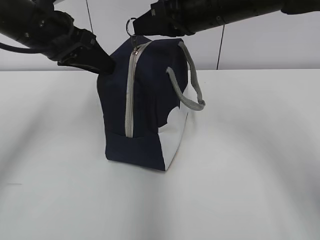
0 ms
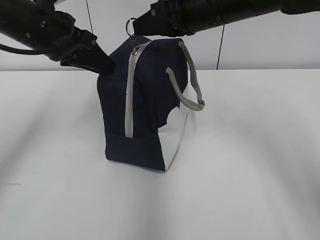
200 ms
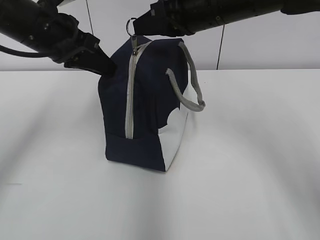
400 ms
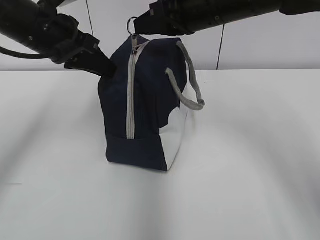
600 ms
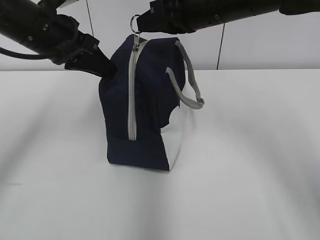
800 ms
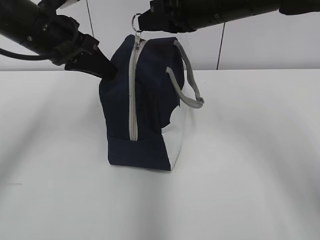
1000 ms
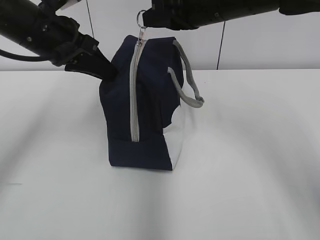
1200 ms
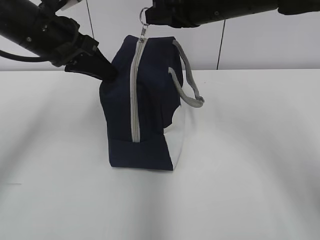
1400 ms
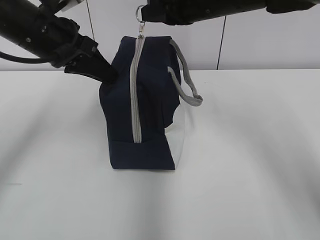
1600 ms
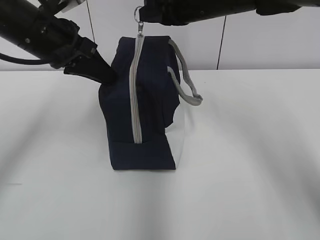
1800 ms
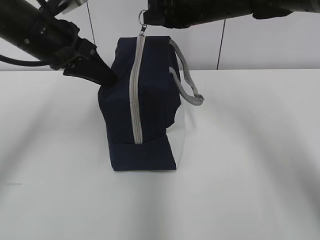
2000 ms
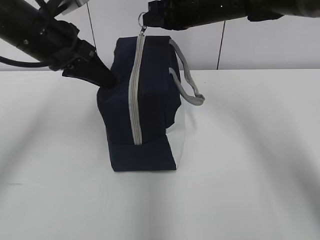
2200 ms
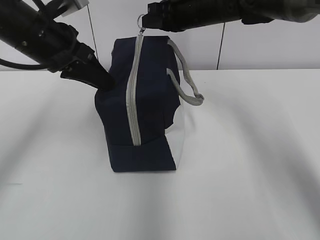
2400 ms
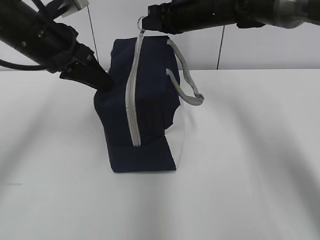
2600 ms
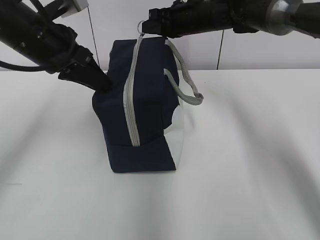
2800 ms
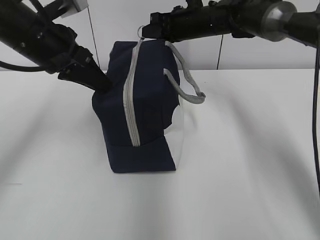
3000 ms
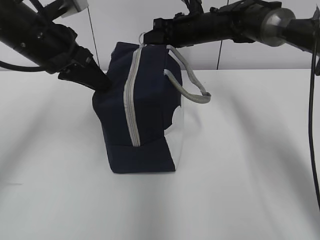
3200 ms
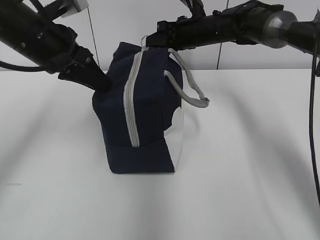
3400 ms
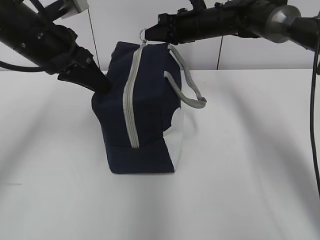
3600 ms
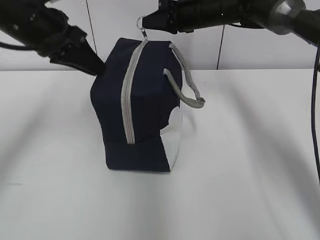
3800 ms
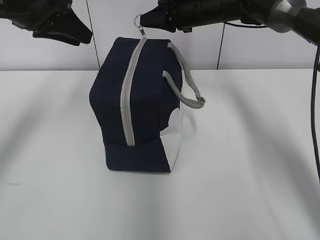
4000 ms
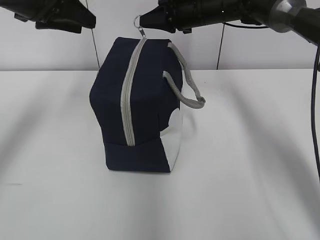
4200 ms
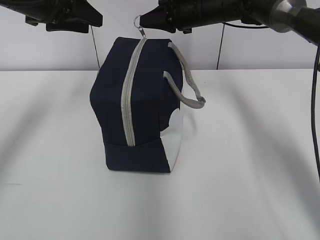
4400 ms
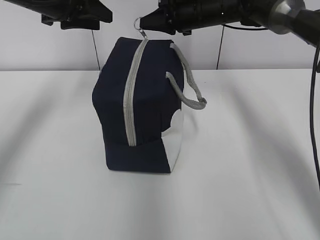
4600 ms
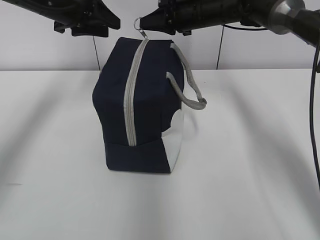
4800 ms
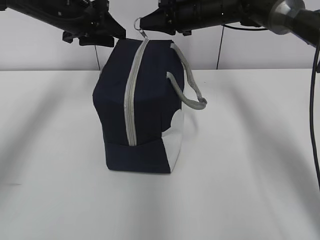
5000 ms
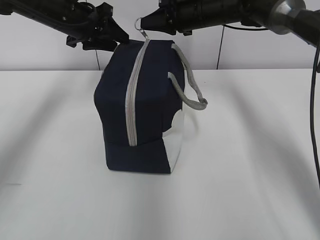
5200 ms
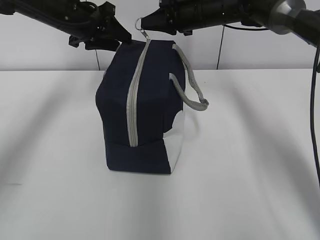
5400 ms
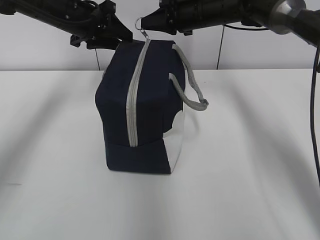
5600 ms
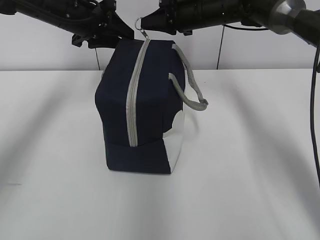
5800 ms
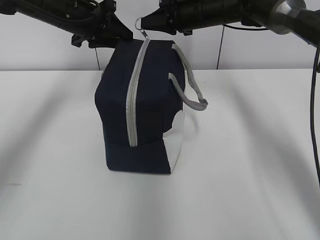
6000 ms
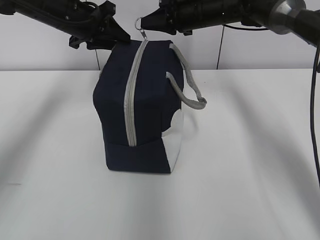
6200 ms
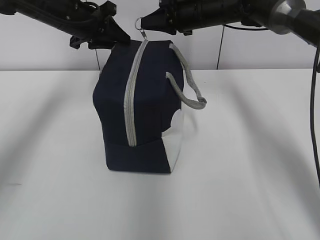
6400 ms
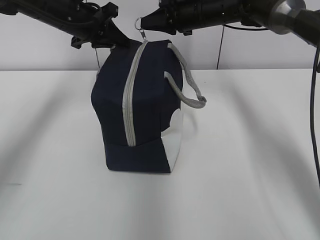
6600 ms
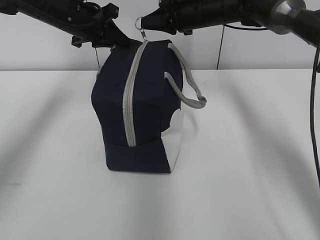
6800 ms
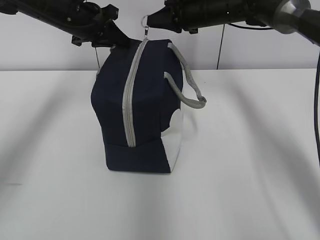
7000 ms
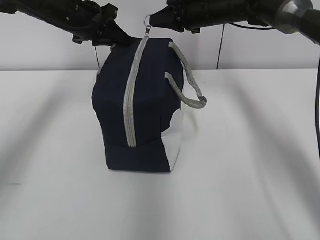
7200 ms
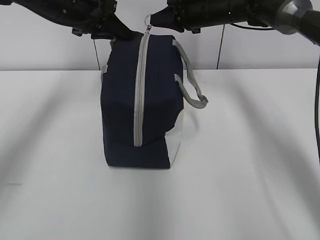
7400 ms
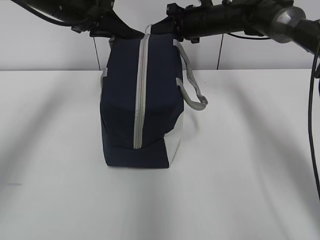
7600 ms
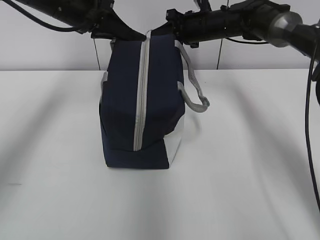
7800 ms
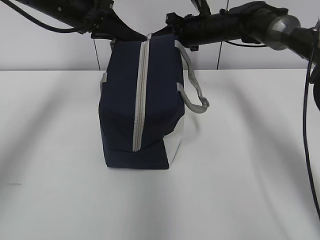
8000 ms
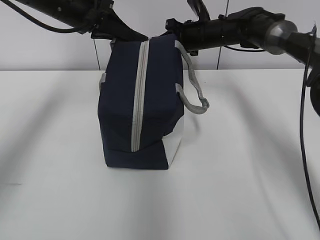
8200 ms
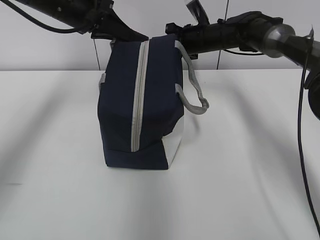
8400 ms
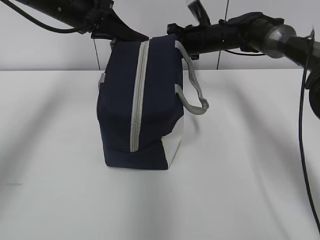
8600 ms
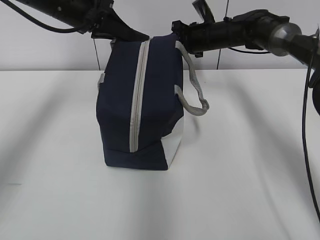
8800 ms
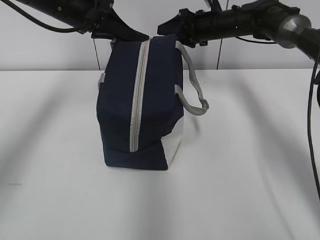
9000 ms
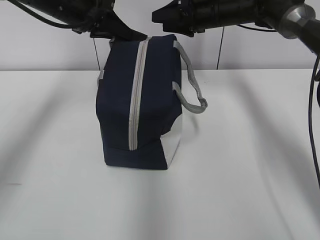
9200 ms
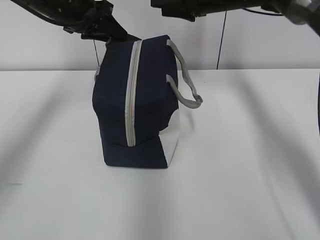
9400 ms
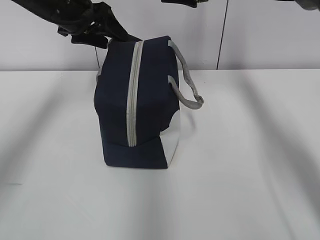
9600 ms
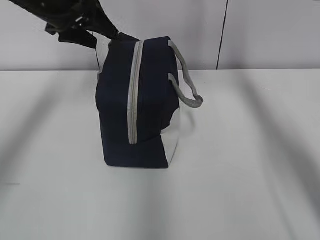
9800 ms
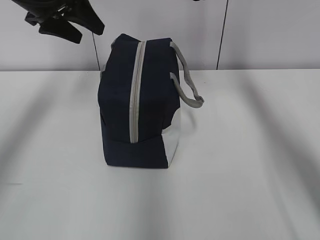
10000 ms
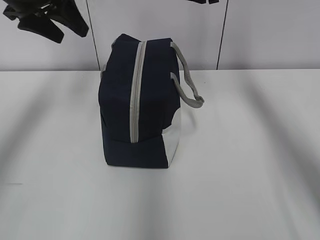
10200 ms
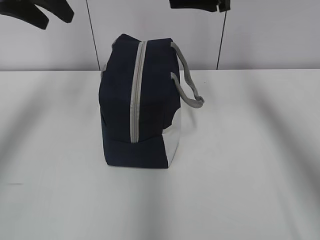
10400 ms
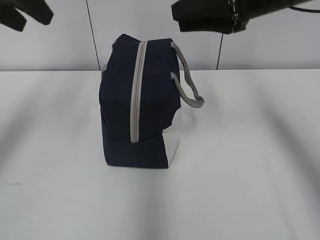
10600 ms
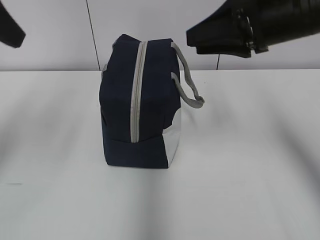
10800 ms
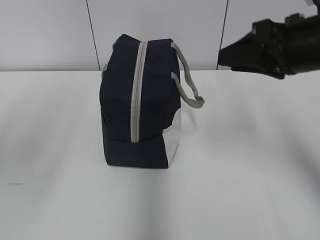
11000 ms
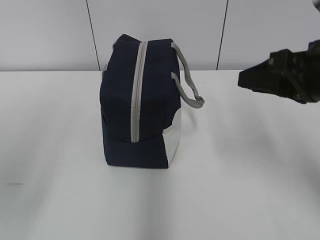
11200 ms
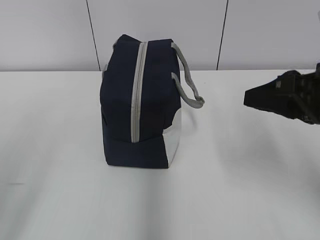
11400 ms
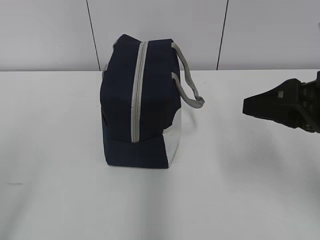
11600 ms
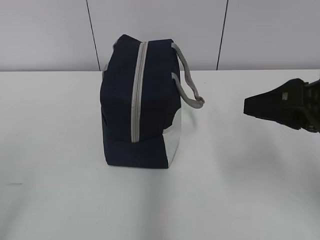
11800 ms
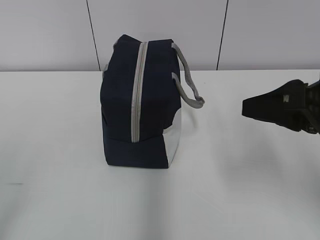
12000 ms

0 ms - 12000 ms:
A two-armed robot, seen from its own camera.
0 ms - 1600 ms: The left gripper closes.
1600 ms - 3000 ms: The right gripper shifts approximately 15 cm forward and downward.
3000 ms - 4400 ms: The left gripper goes roughly 5 cm forward, and opens its fingers.
4400 ms - 6000 ms: The left gripper travels forward and downward by some 10 cm.
6000 ms - 7600 ms: The left gripper closes up.
7600 ms - 9000 ms: The right gripper opens.
9000 ms - 10400 ms: The left gripper heads upward, to the left and backward, covering some 10 cm, and opens, while the right gripper travels backward and upward by roughly 20 cm.
10400 ms - 12000 ms: The left gripper is displaced backward by approximately 40 cm, while the right gripper moves backward, approximately 20 cm.

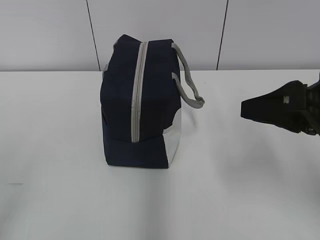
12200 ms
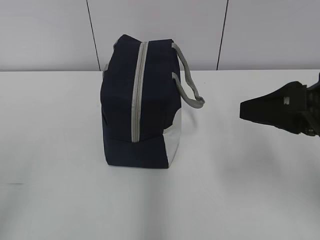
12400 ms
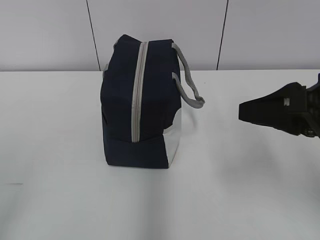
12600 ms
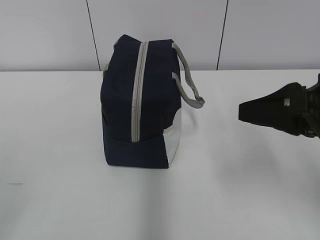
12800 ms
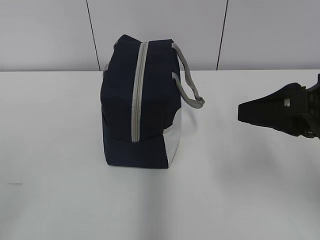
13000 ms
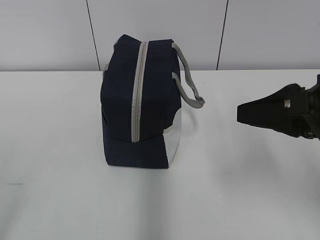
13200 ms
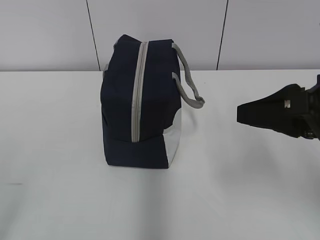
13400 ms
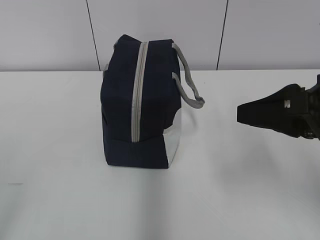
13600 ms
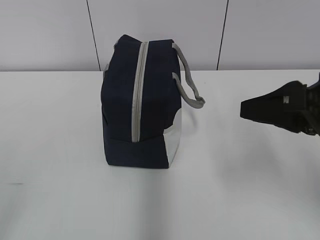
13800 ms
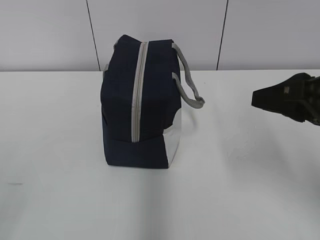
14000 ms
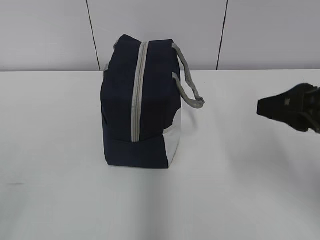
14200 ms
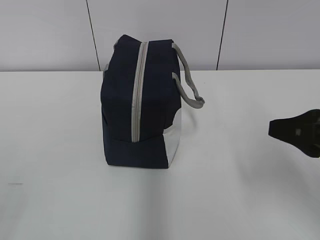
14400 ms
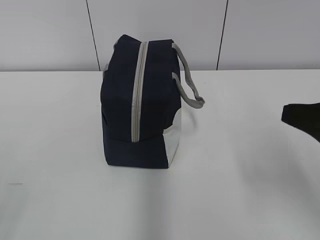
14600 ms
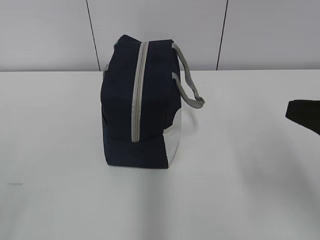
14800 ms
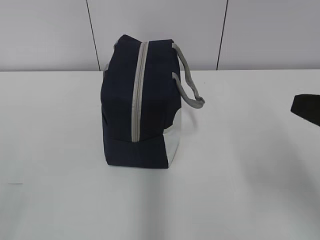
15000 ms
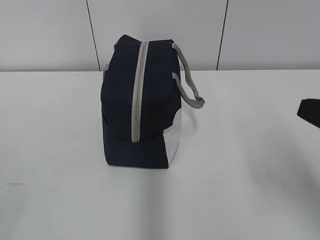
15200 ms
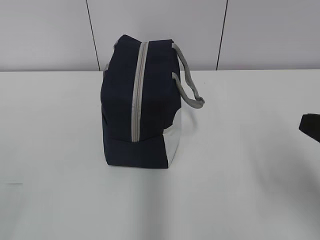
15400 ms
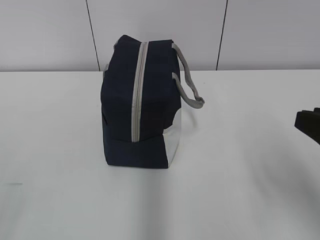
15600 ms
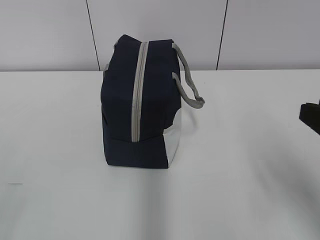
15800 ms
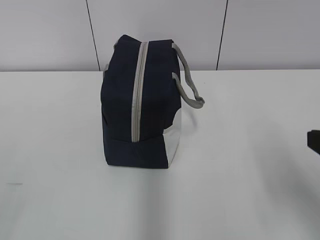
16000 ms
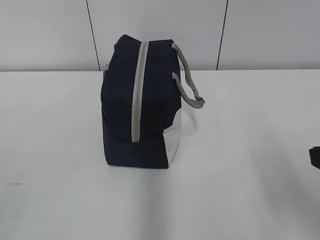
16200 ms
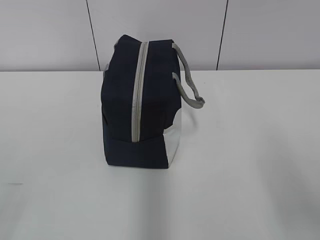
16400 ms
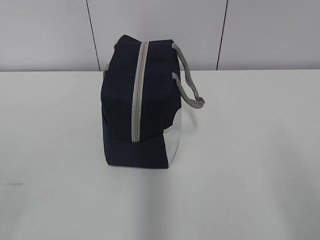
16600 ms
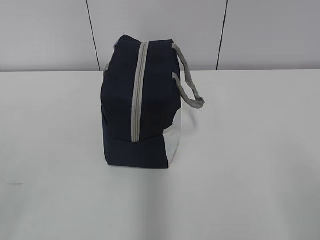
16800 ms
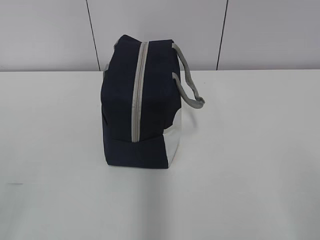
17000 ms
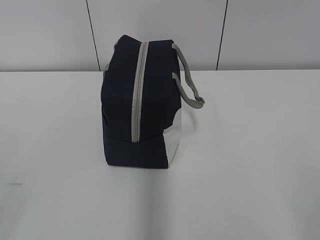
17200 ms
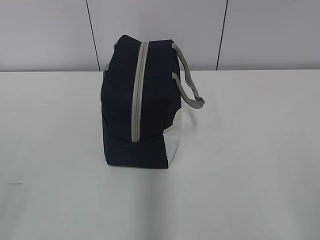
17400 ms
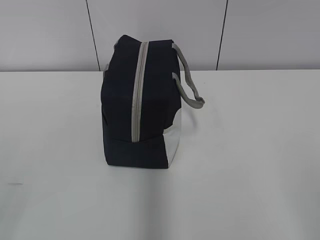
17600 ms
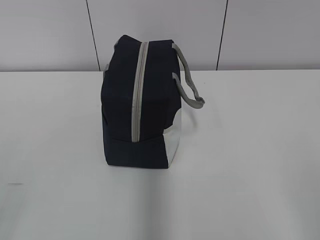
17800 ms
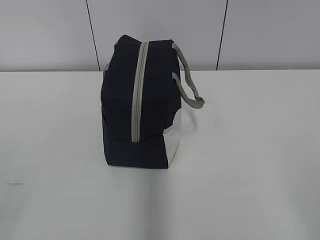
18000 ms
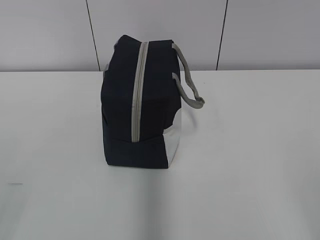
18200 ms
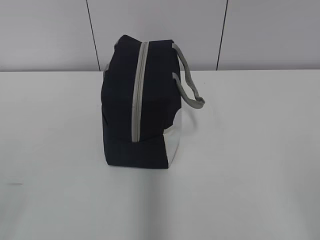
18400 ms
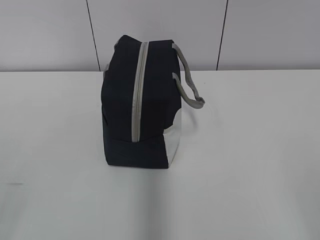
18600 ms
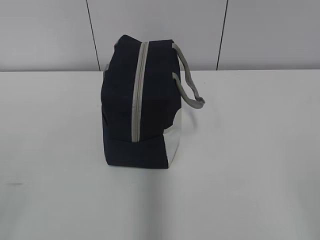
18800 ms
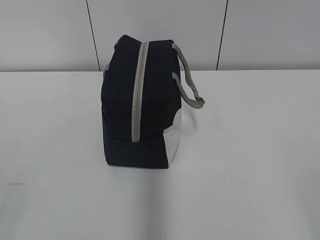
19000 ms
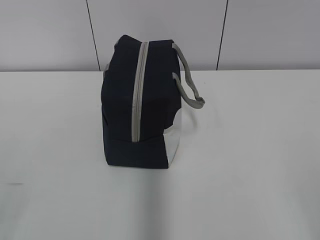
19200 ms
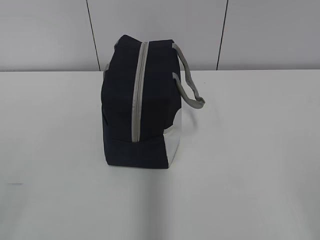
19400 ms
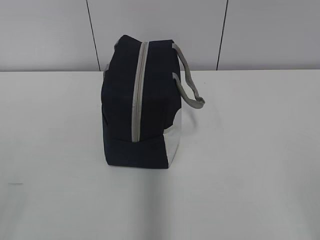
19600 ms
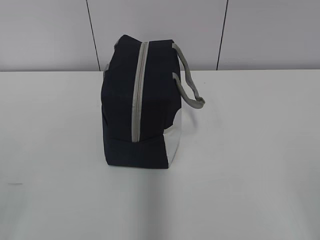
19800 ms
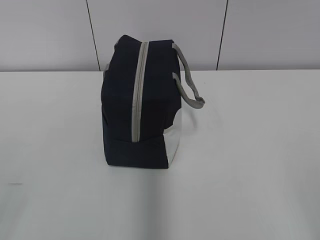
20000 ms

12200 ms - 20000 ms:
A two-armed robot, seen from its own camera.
13800 ms - 15400 ms: The right gripper moves backward, approximately 5 cm.
15400 ms - 16800 ms: The right gripper travels backward by some 15 cm.
18400 ms - 20000 ms: The two grippers keep their place.

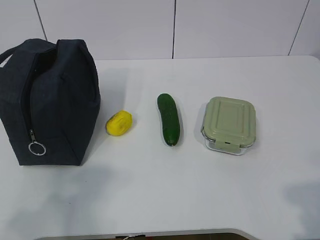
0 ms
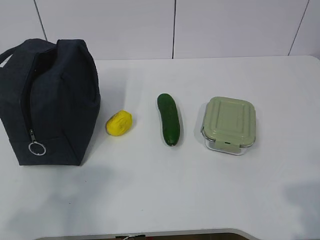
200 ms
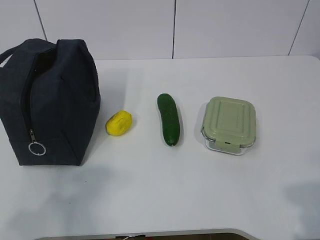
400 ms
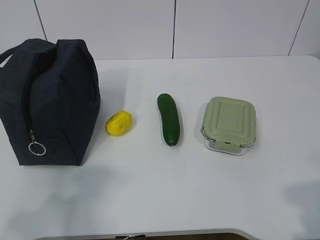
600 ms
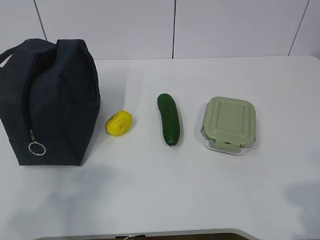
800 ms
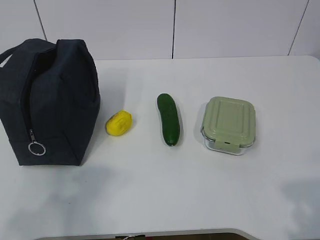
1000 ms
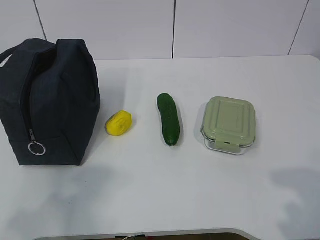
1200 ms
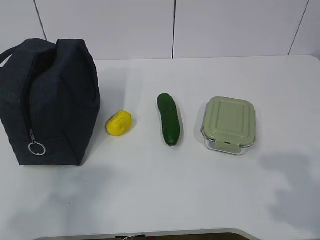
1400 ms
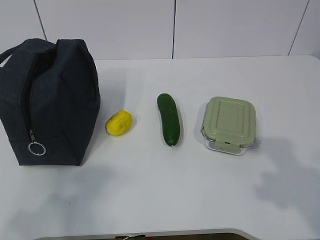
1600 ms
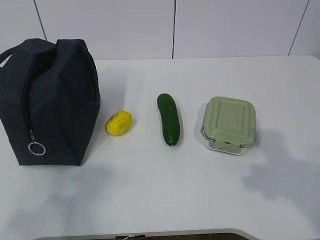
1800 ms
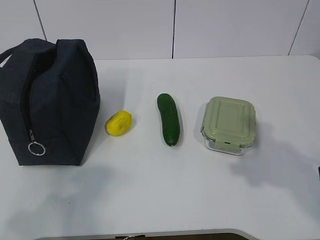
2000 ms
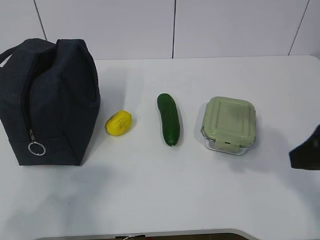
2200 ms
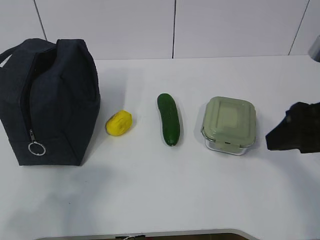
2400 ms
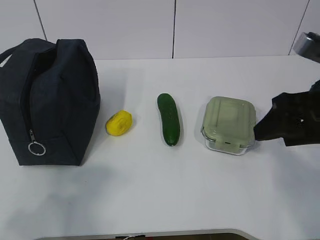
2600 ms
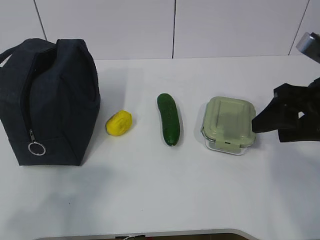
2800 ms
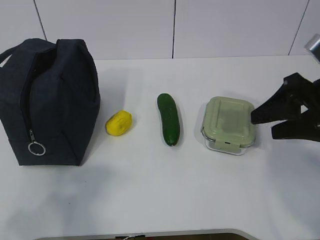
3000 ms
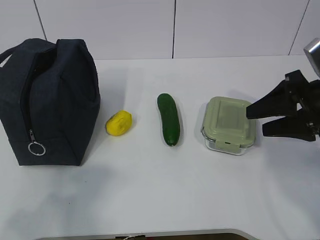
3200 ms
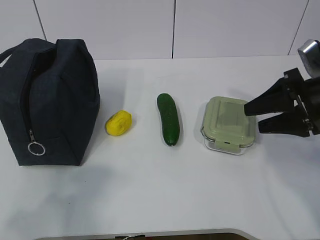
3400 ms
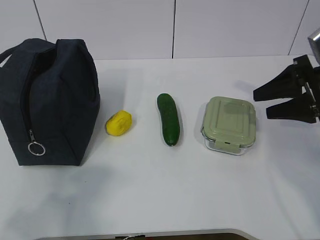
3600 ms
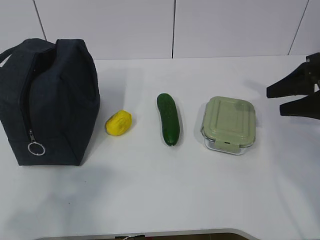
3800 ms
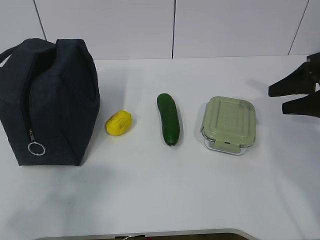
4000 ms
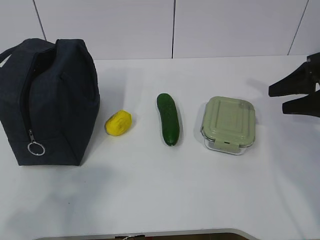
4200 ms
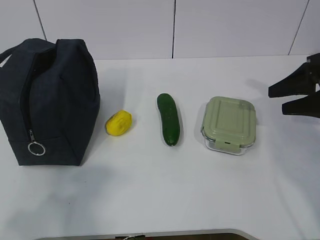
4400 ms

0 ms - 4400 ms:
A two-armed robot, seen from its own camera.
1400 ms - 3000 ms: The right gripper is displaced forward by roughly 25 cm.
3000 ms - 4400 ms: The right gripper shifts roughly 10 cm to the right and forward.
